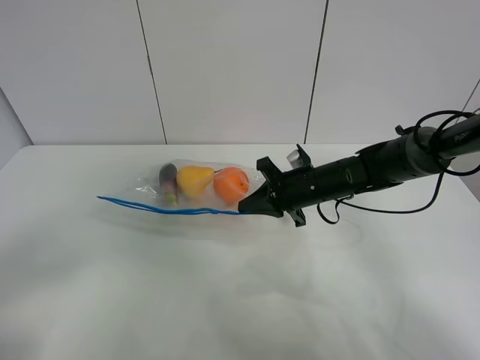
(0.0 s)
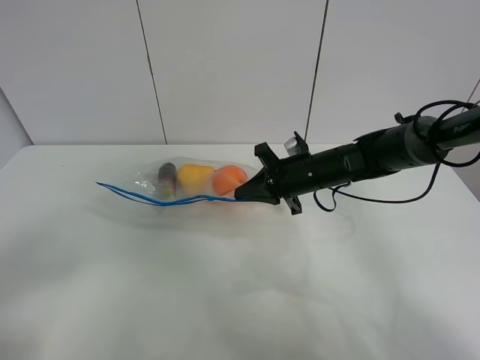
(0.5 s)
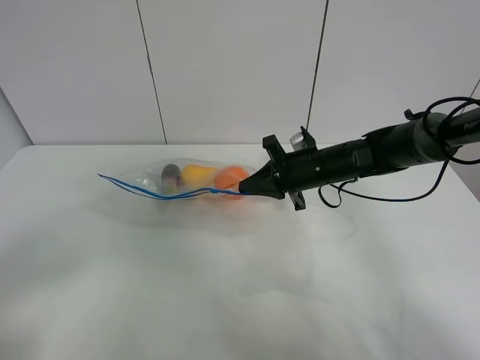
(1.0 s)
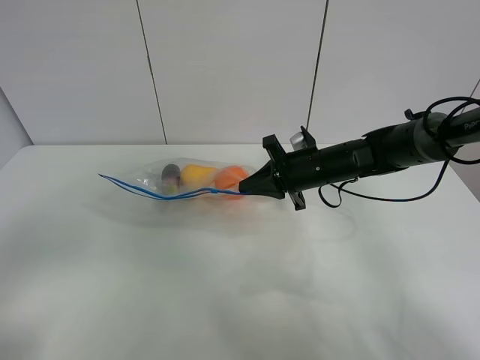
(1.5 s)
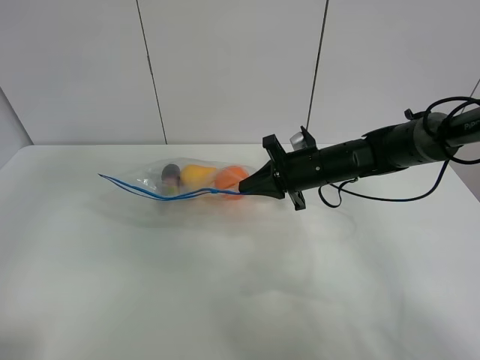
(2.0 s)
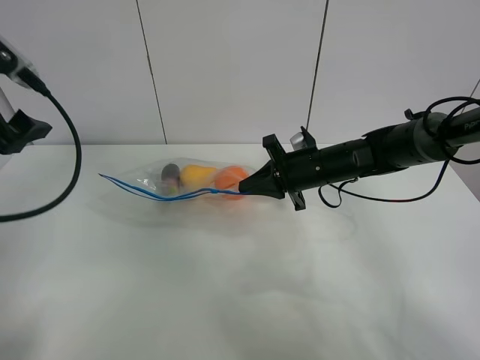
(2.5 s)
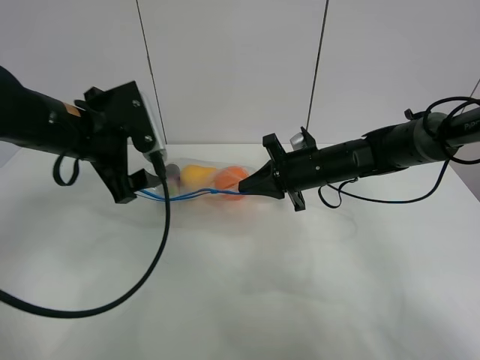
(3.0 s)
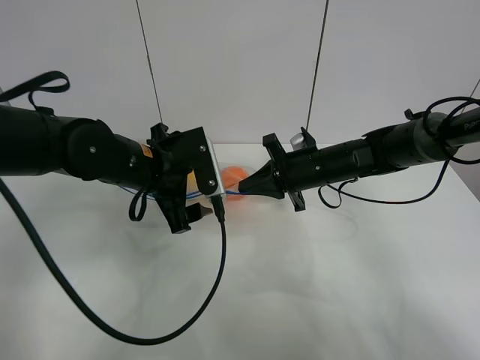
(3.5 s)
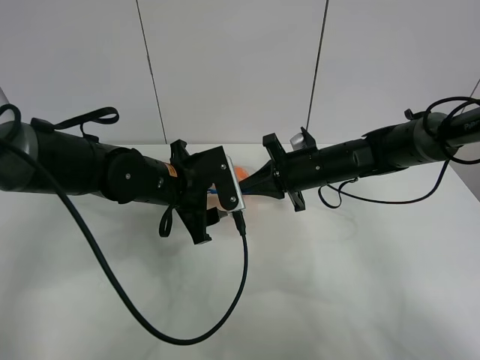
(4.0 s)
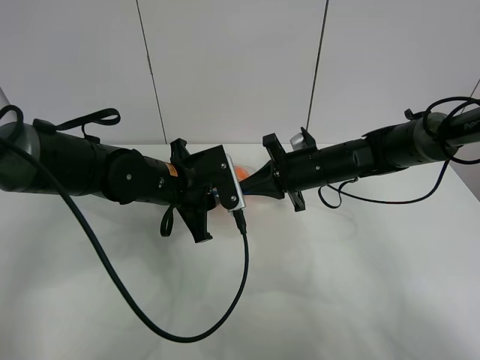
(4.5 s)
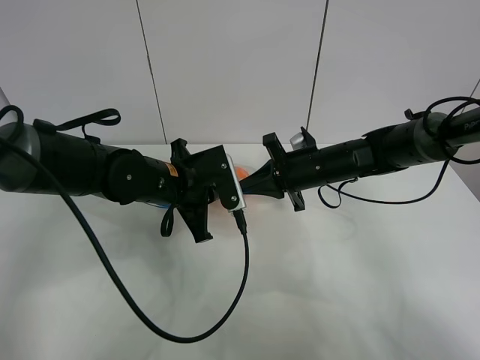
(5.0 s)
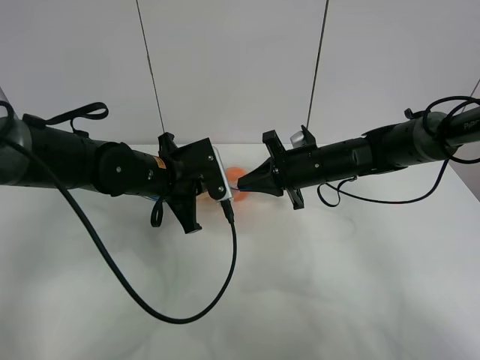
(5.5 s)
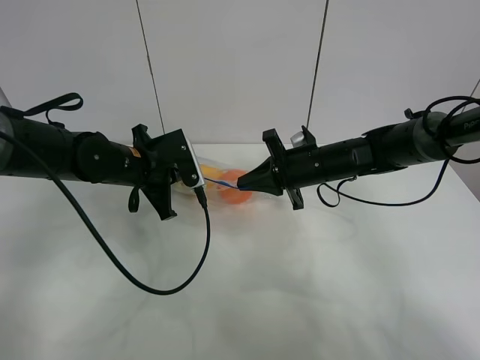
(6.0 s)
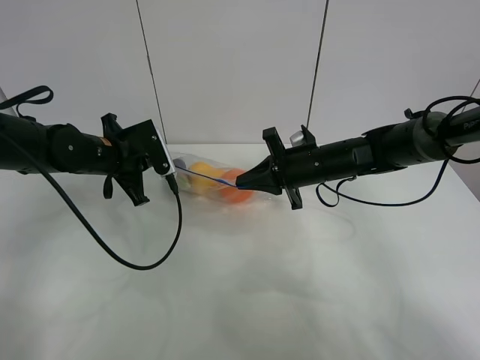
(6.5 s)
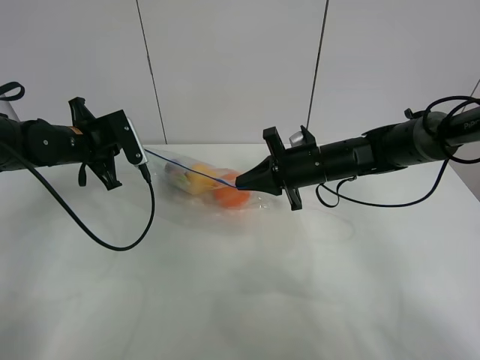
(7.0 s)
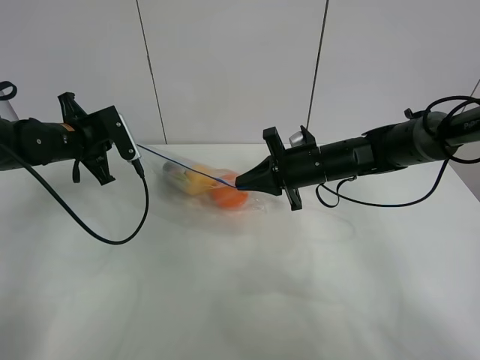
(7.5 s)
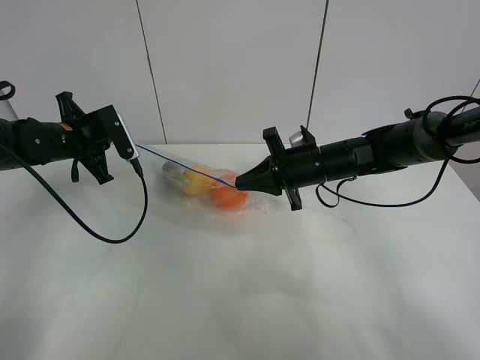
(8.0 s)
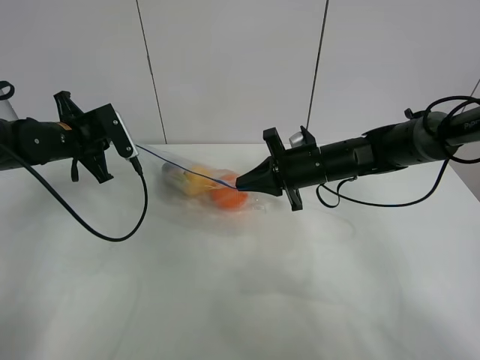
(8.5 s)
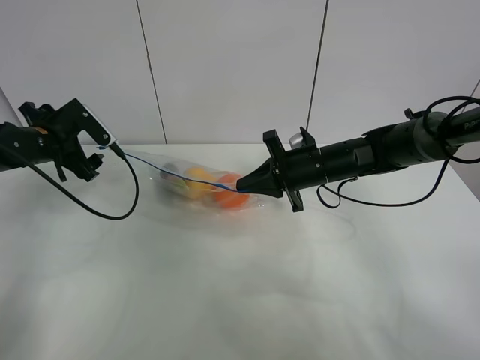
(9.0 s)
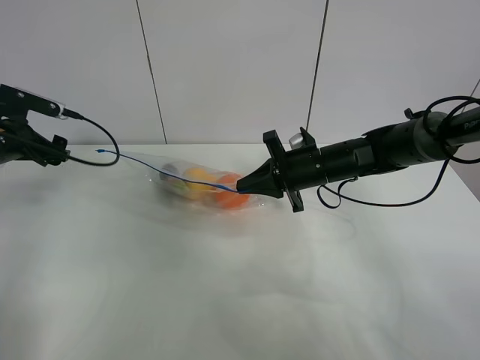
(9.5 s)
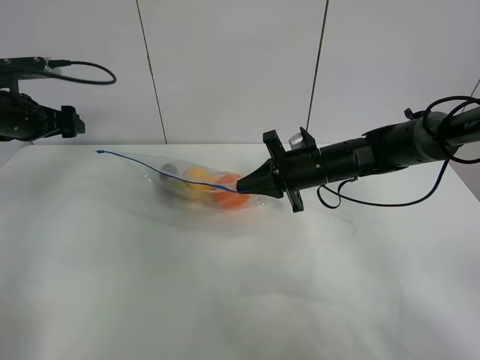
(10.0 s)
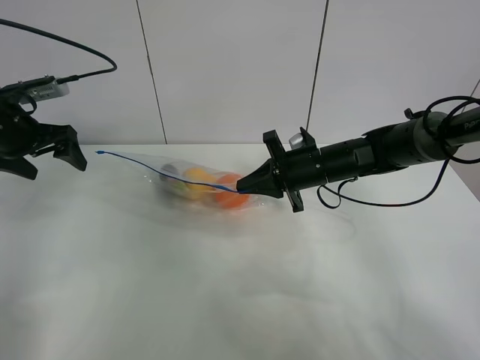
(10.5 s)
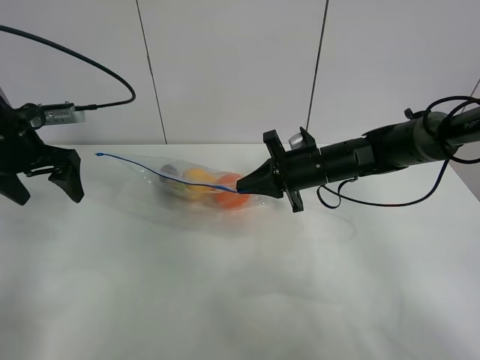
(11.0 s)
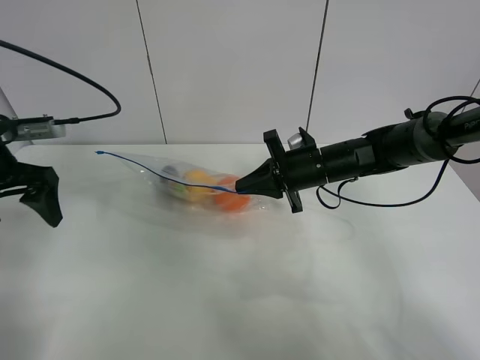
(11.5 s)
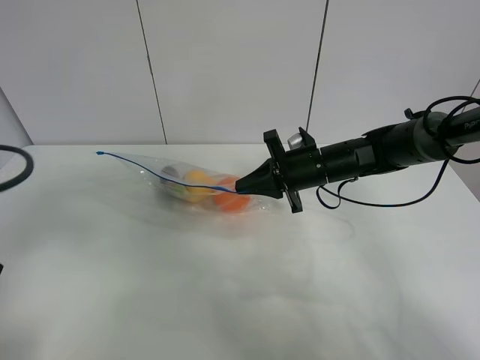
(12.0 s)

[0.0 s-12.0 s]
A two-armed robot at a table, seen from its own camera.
Step, 1.0 to 9.0 s: Pull the fruit bag with left gripper.
0.0 to 2.0 s: The left gripper is displaced forward and upward by about 20 cm.
2.0 to 4.0 s: The left gripper travels downward, to the right and forward by some 35 cm.
4.0 to 6.0 s: The left gripper goes approximately 5 cm to the left, and closes.
6.0 to 8.0 s: The left gripper heads to the left, covering roughly 10 cm.
8.0 to 10.0 s: The left gripper moves to the left, about 10 cm, and opens.
10.0 to 12.0 s: The left gripper heads backward, covering some 25 cm.

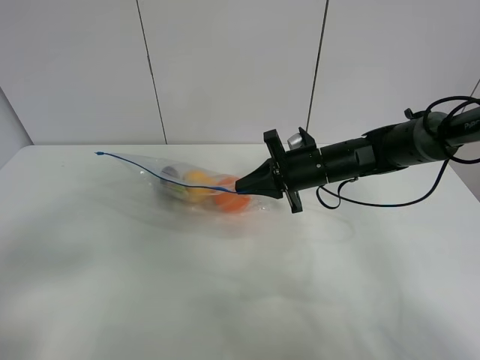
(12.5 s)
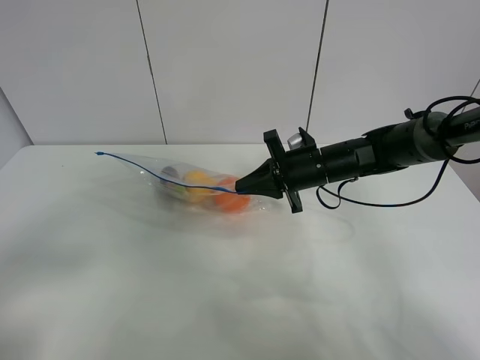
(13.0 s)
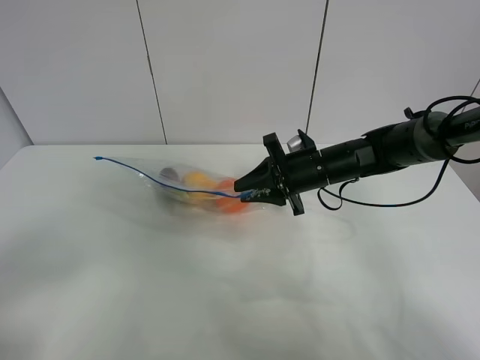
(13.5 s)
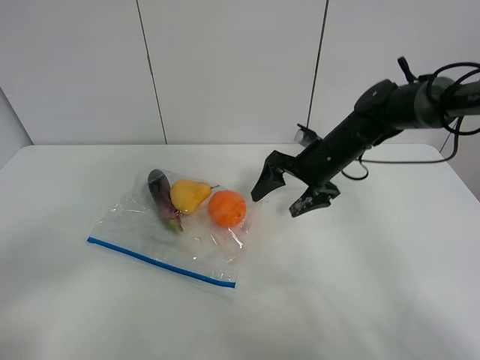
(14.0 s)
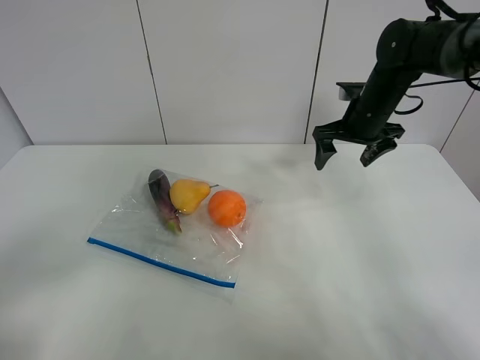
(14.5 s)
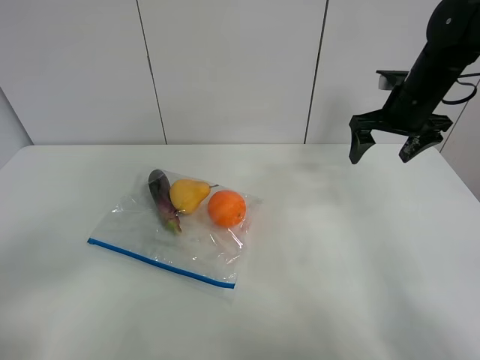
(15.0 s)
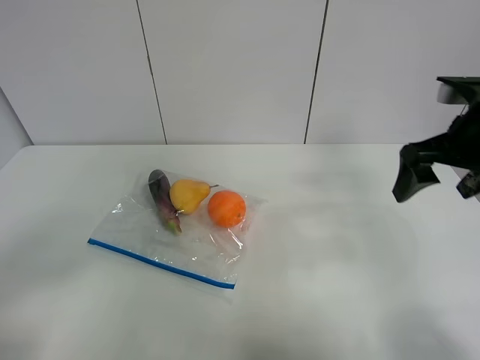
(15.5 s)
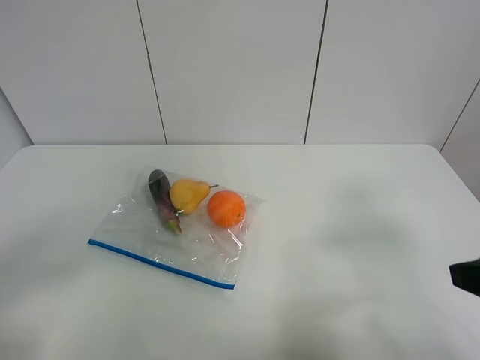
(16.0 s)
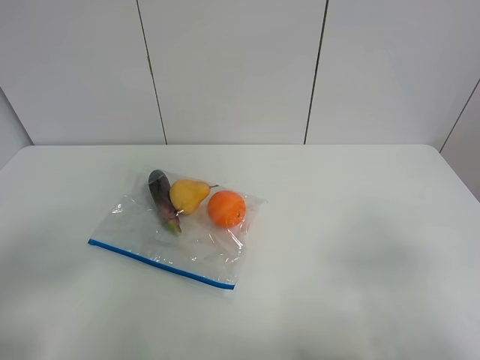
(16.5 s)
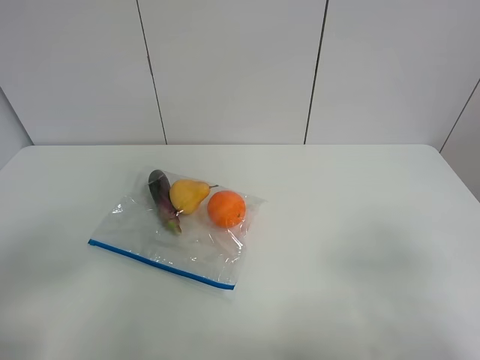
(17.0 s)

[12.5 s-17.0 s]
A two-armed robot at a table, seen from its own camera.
12.5 to 14.5 s: The right gripper moves to the right, upward and forward, about 15 cm, and opens its fingers. The left gripper travels backward by some 5 cm.
14.5 to 17.0 s: The right gripper travels backward by about 40 cm.
